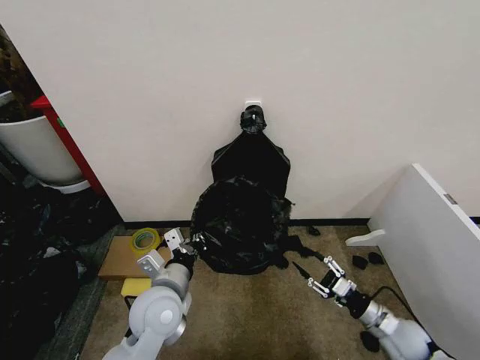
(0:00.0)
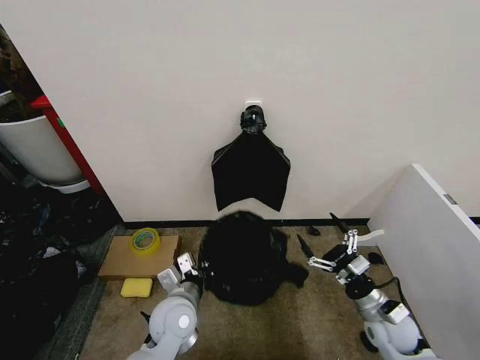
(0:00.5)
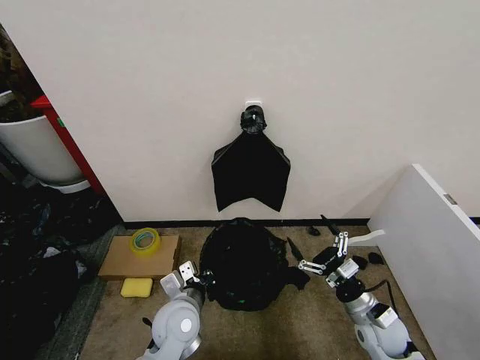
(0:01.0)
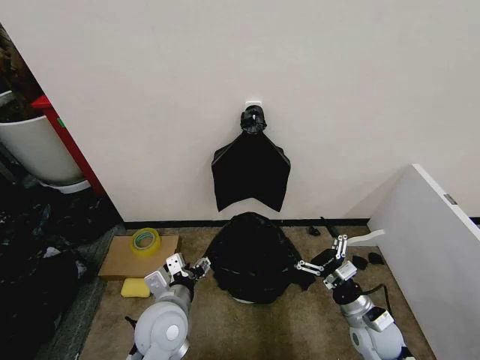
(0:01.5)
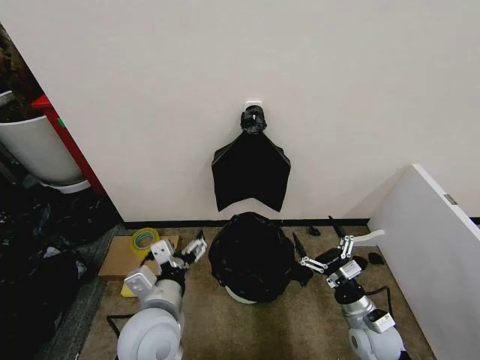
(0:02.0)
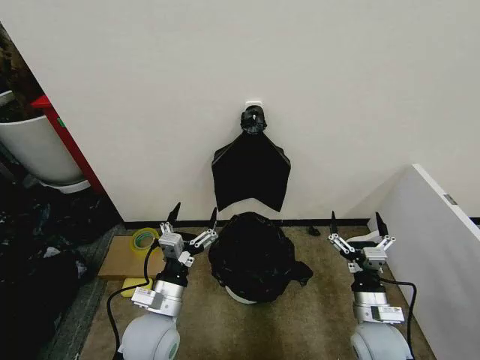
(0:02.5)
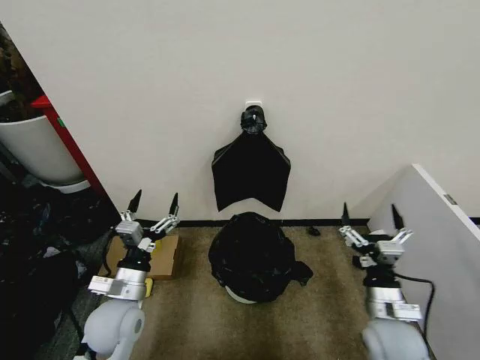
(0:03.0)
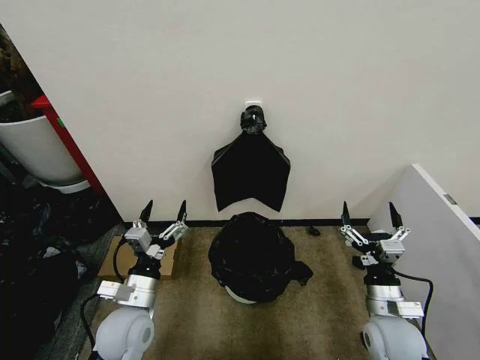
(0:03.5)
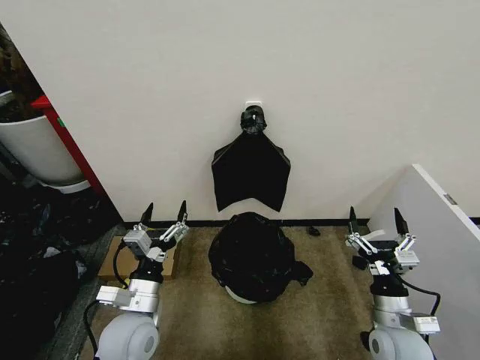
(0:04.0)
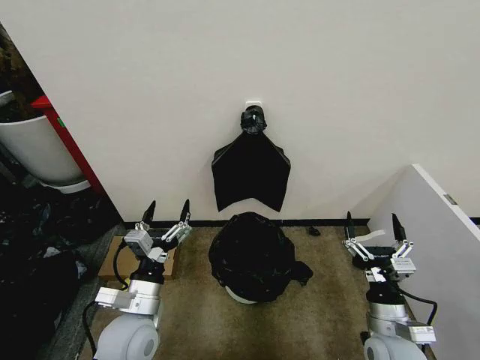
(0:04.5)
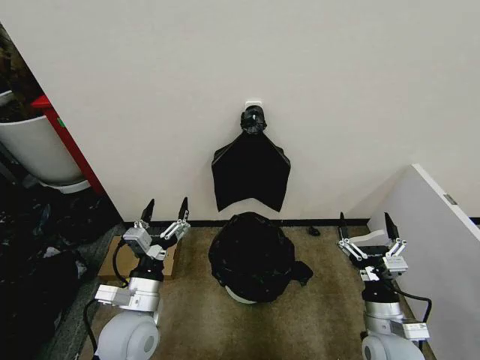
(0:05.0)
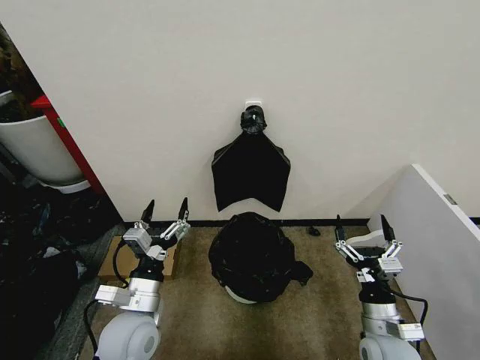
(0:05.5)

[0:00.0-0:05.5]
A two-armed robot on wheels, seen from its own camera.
Task of the whole recording: Place the garbage bag over the trash bin.
0:00.0 to 0:02.0: The right gripper is displaced to the left by approximately 10 cm, and opens. Meanwhile the left gripper travels backward by about 5 cm, goes downward and returns, about 5 cm each way, and opens its fingers.
0:02.0 to 0:03.5: The left gripper moves to the left and downward, roughly 10 cm. The right gripper moves upward, approximately 5 cm.
0:03.5 to 0:05.5: The grippers make only small movements.

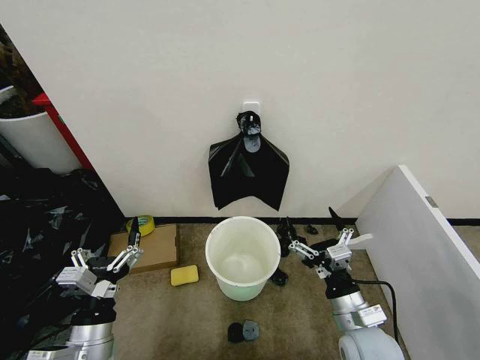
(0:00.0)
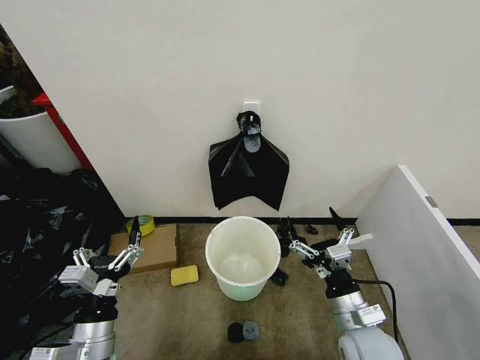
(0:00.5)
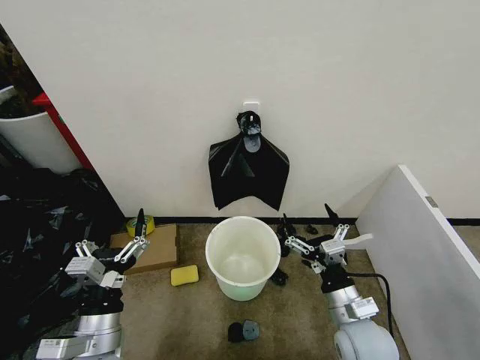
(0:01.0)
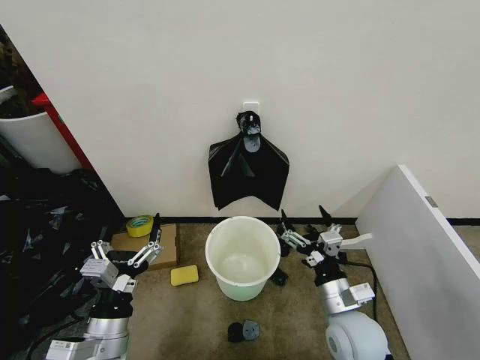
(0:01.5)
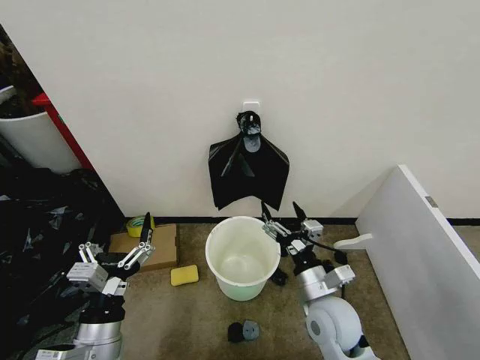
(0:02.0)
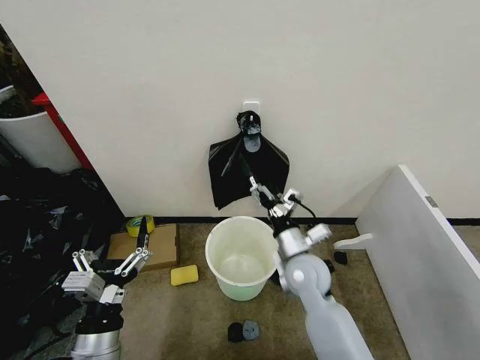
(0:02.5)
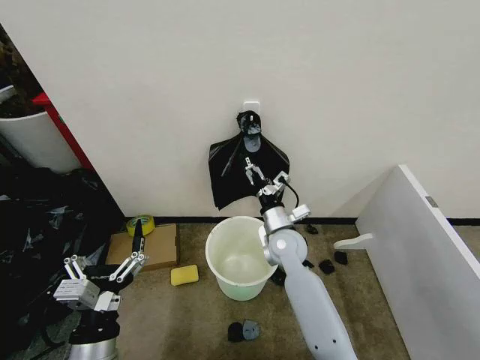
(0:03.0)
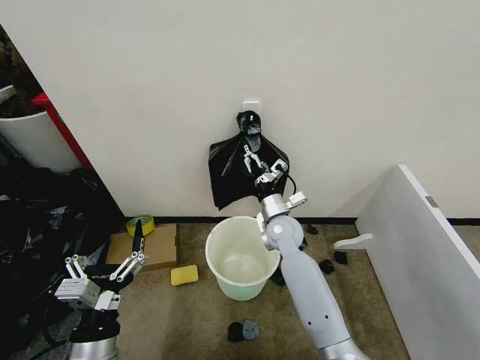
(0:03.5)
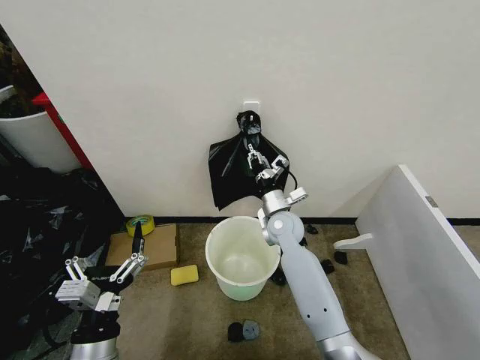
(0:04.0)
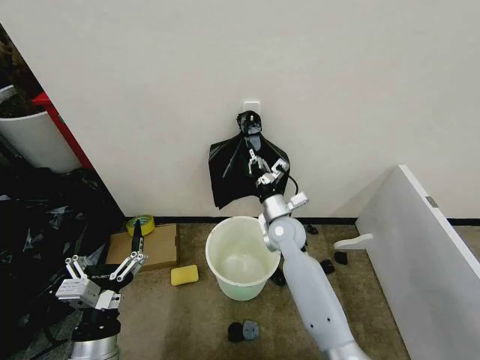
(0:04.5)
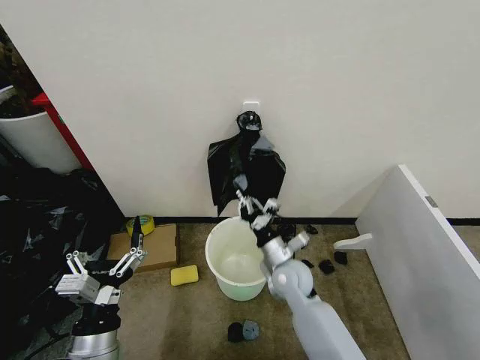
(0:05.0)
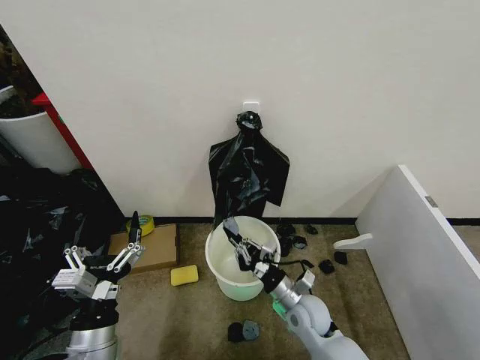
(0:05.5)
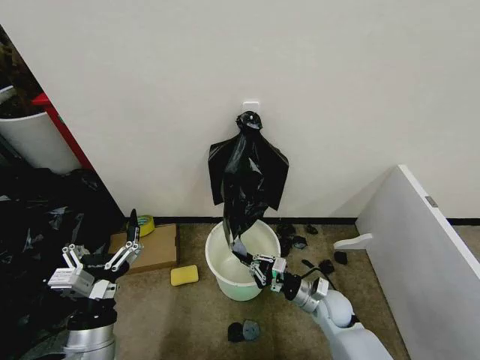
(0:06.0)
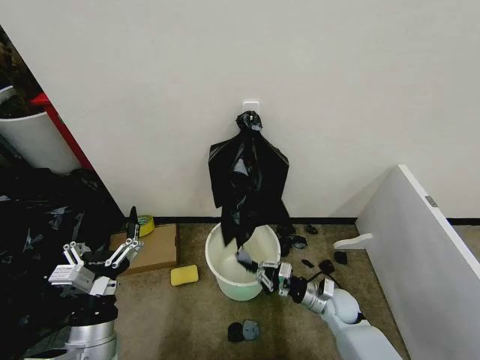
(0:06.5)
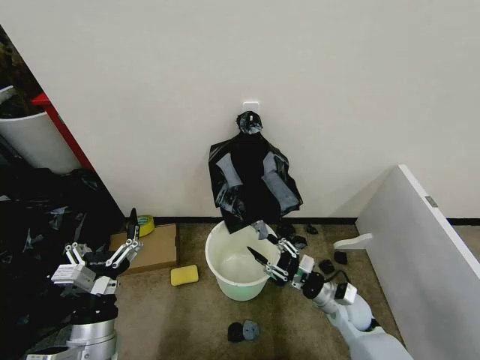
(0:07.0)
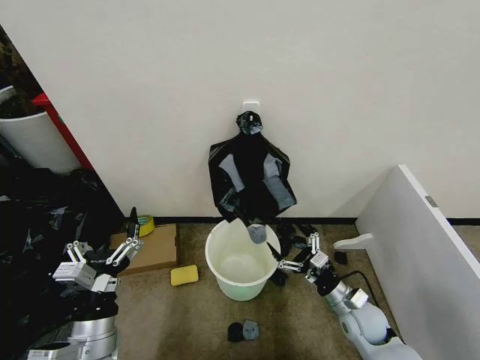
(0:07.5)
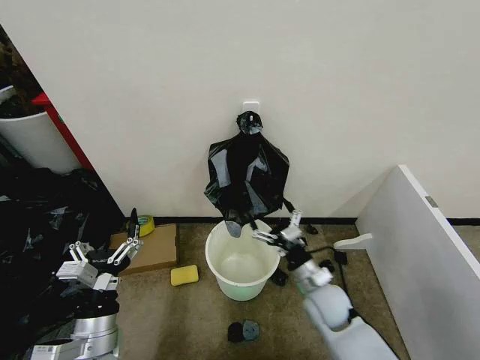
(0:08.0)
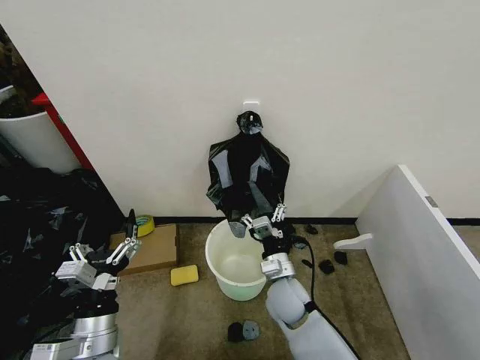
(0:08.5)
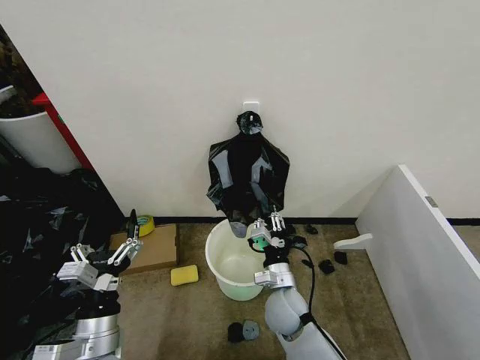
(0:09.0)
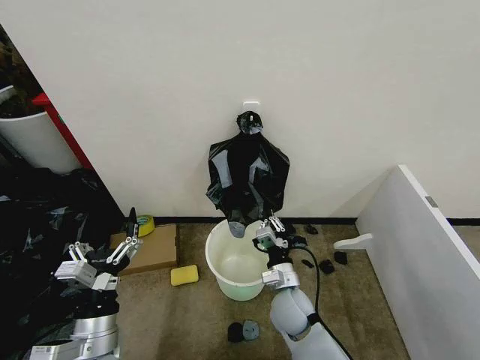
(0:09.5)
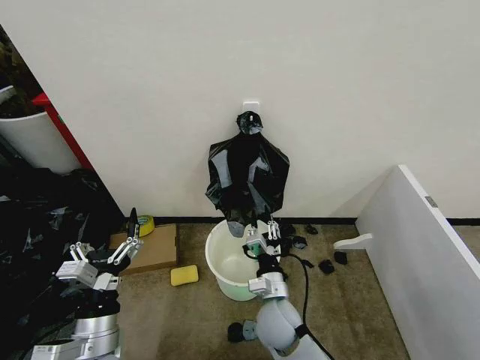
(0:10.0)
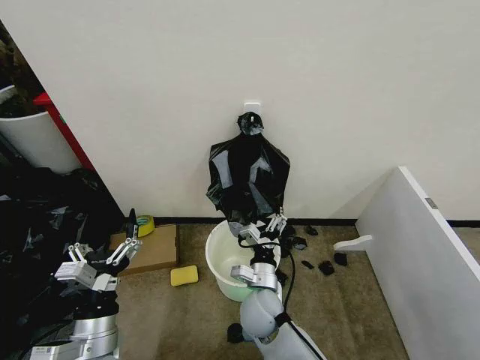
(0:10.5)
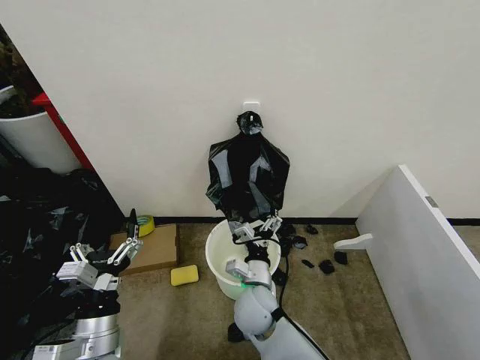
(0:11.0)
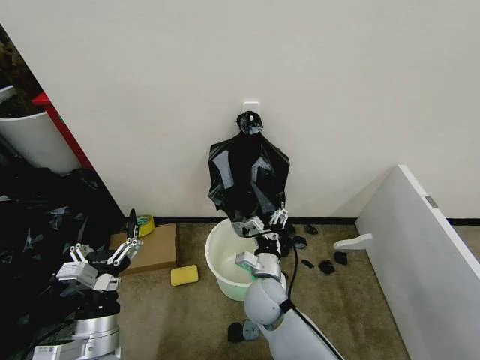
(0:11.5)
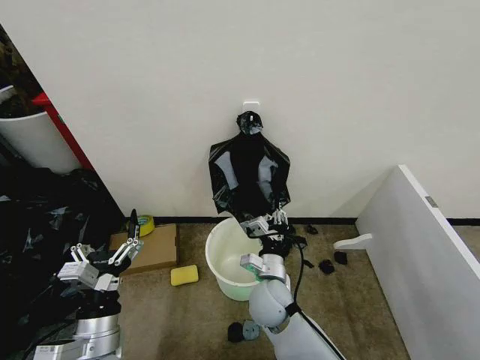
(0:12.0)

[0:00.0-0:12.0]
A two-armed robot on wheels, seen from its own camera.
Task of the whole recording: Place the garbage bag over the trash bin.
0:02.0 to 0:04.0: The right gripper shifts roughly 20 cm forward, and closes up.
0:04.0 to 0:06.0: The right gripper is displaced backward, downward and to the right by approximately 25 cm.
0:06.0 to 0:08.0: The right gripper is displaced upward by some 5 cm, and opens its fingers.
0:08.0 to 0:10.0: The right gripper shifts about 10 cm to the left, and closes its fingers.
0:10.0 to 0:12.0: The right gripper opens and closes again.

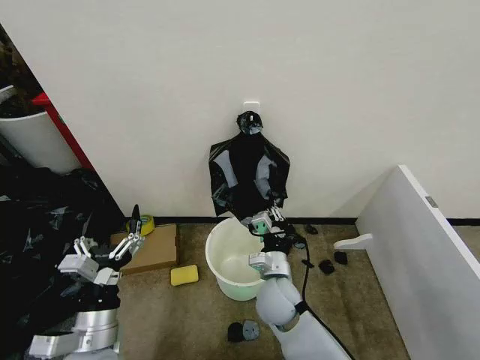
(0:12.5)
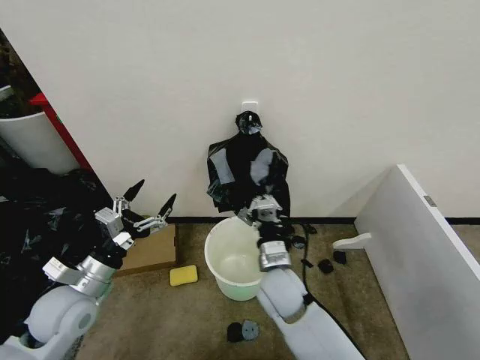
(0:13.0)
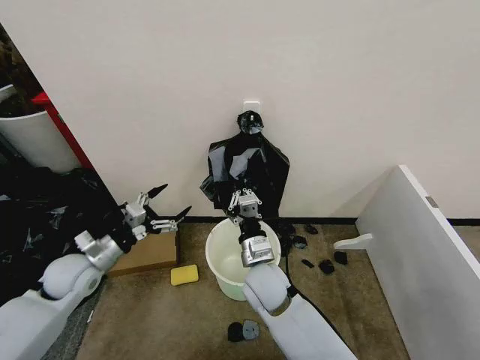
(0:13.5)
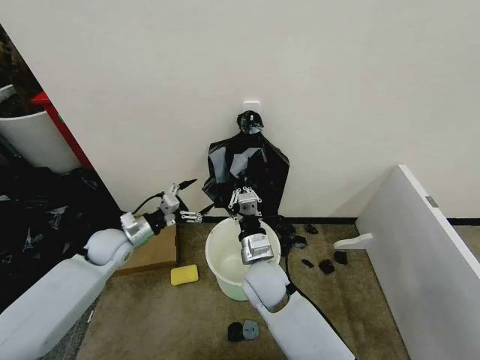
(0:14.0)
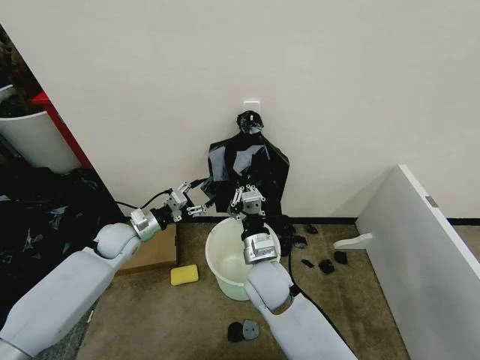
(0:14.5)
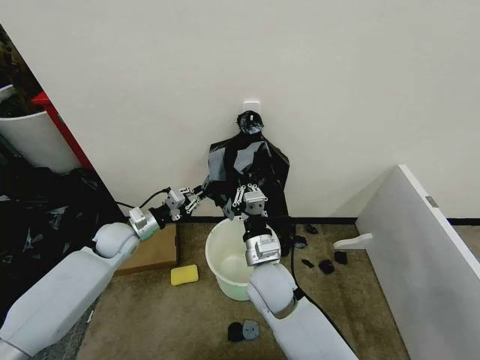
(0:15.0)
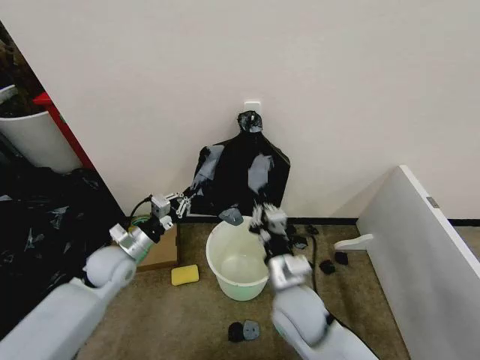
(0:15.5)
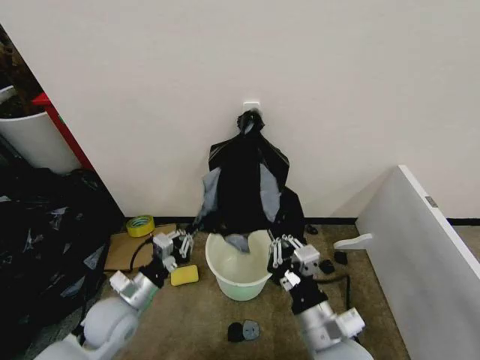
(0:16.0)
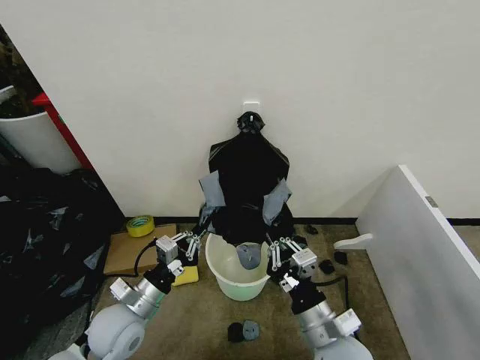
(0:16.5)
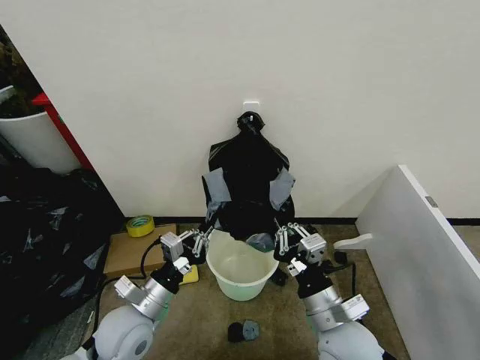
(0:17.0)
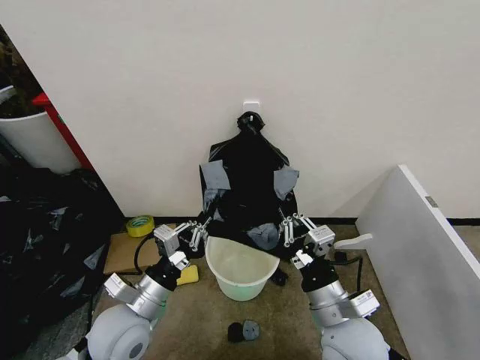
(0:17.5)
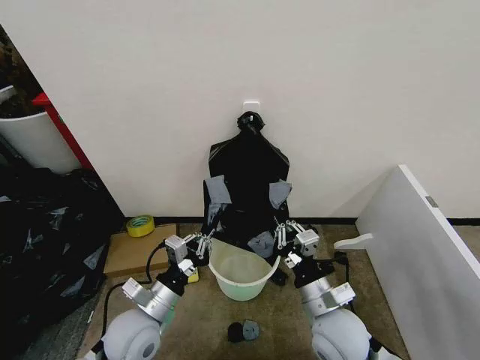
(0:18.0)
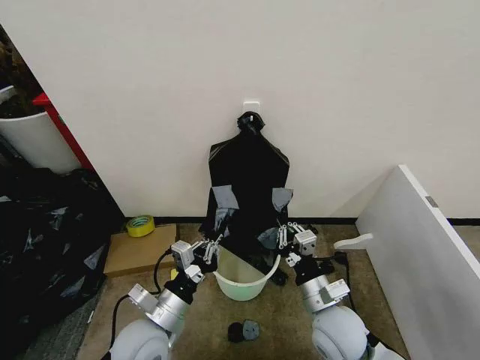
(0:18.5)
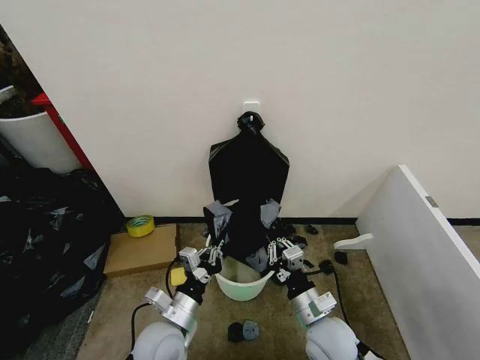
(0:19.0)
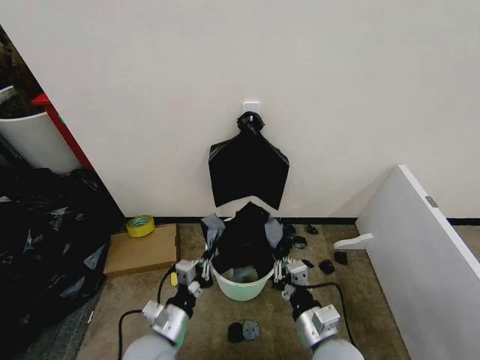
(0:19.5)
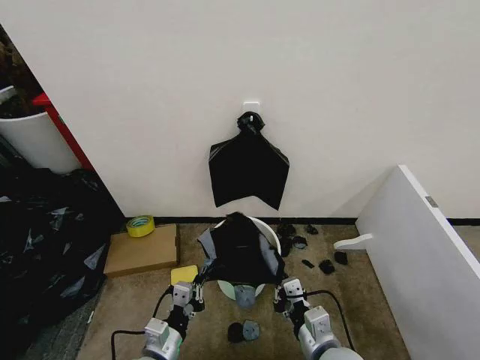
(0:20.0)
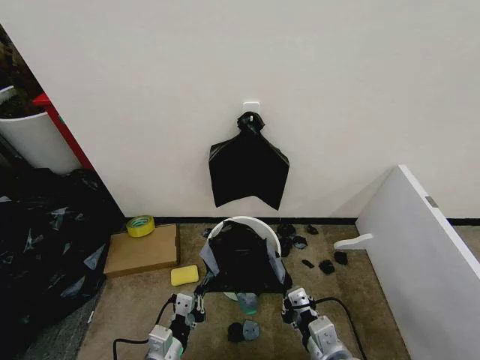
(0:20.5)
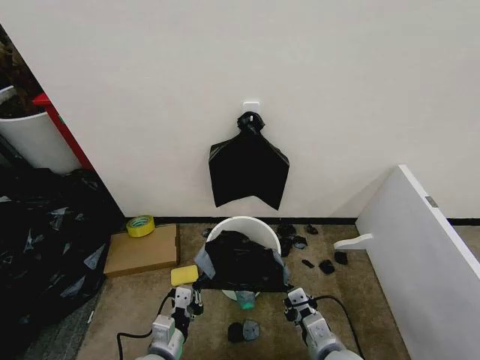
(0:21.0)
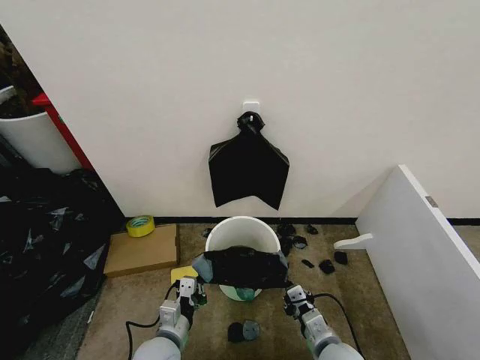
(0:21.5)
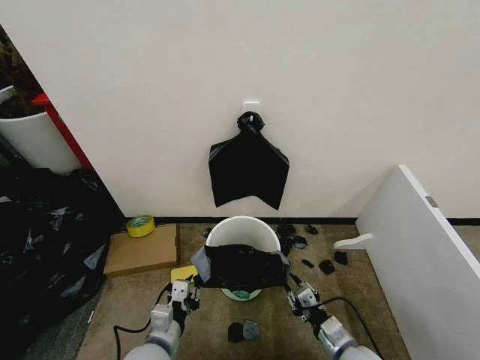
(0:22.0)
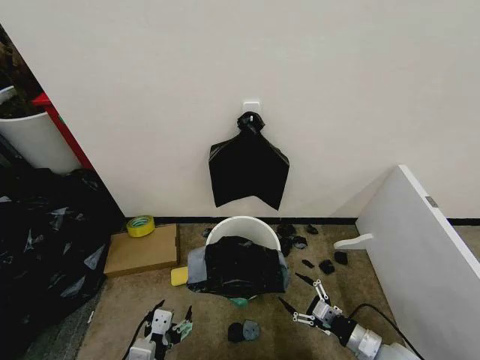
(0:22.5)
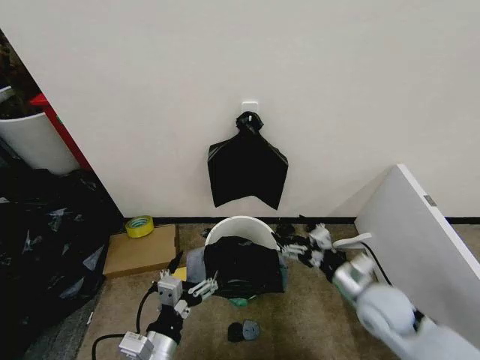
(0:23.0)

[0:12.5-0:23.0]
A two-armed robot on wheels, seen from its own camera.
Task of the whole recording: Place the garbage bag over the trash bin.
0:12.5 to 0:14.5: The right gripper travels upward by some 5 cm, while the left gripper travels forward by approximately 25 cm, and closes up.
0:14.5 to 0:16.5: The left gripper is displaced backward by some 20 cm, and closes up; the right gripper goes some 20 cm backward and to the right.
0:16.5 to 0:19.0: The right gripper shifts about 5 cm downward. Meanwhile the left gripper is displaced to the right by about 10 cm.
0:19.0 to 0:21.0: The grippers both shift backward by roughly 5 cm.
0:21.0 to 0:23.0: The left gripper heads upward, covering about 10 cm, and opens. Meanwhile the right gripper goes about 15 cm forward, to the right and upward, and opens its fingers.
